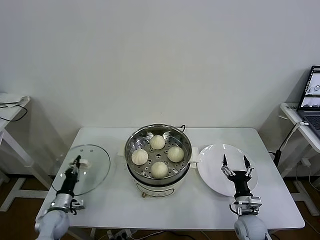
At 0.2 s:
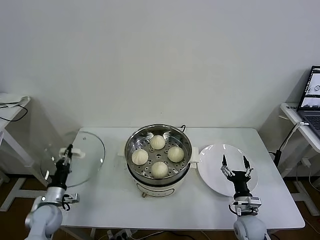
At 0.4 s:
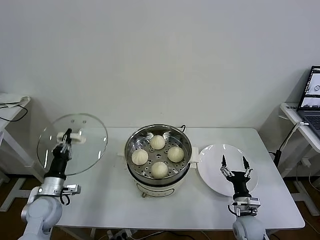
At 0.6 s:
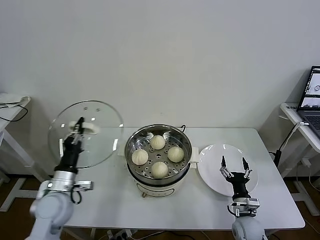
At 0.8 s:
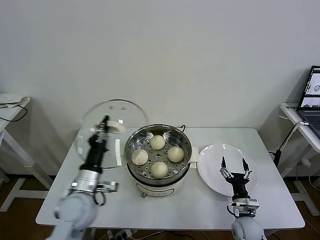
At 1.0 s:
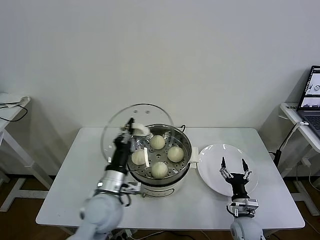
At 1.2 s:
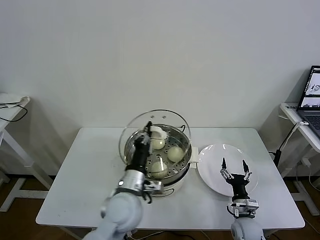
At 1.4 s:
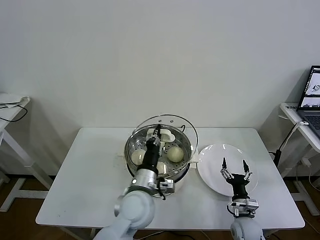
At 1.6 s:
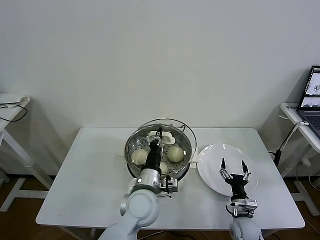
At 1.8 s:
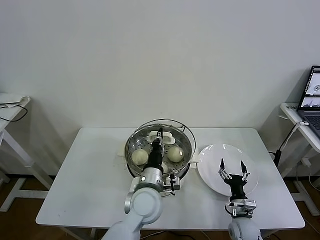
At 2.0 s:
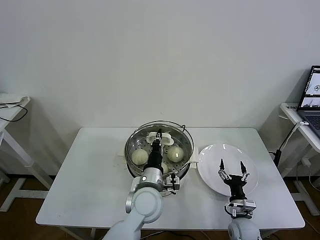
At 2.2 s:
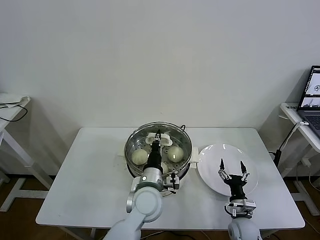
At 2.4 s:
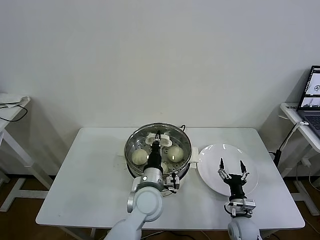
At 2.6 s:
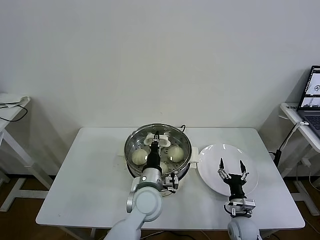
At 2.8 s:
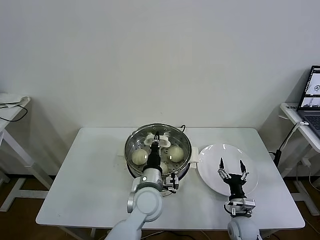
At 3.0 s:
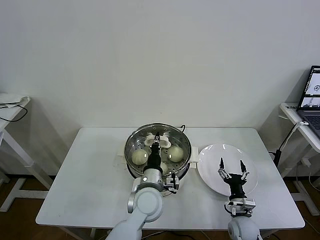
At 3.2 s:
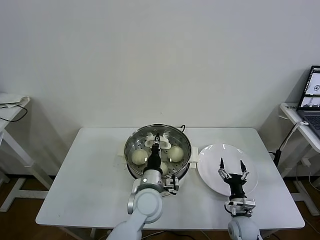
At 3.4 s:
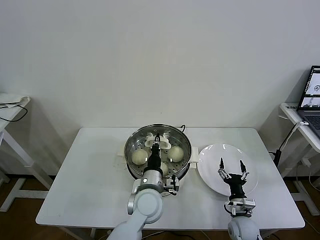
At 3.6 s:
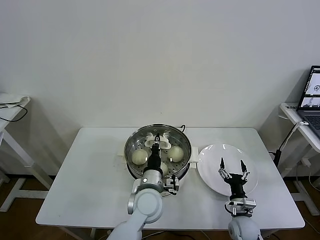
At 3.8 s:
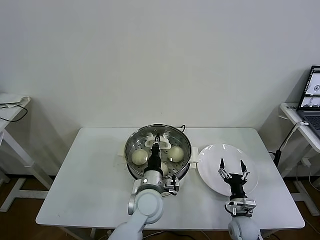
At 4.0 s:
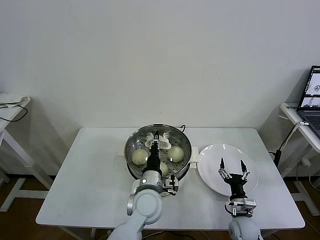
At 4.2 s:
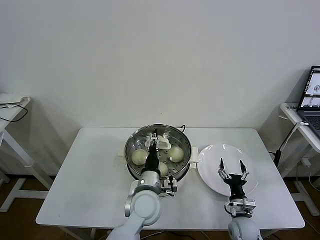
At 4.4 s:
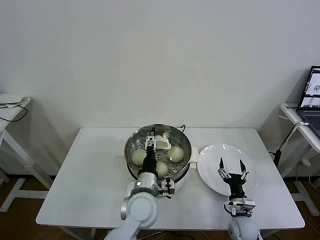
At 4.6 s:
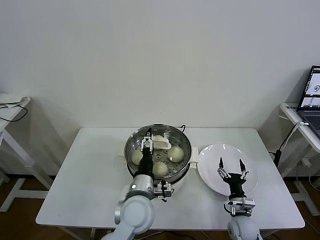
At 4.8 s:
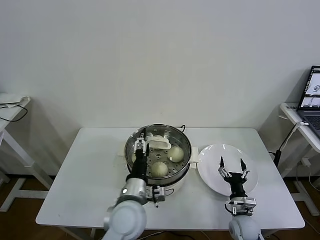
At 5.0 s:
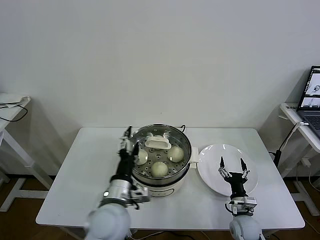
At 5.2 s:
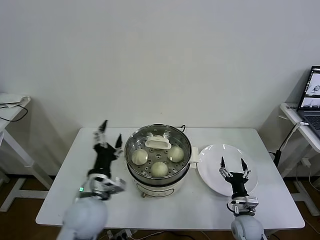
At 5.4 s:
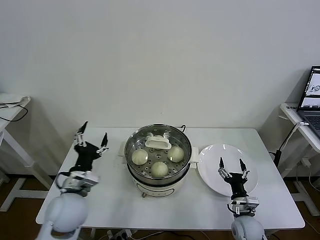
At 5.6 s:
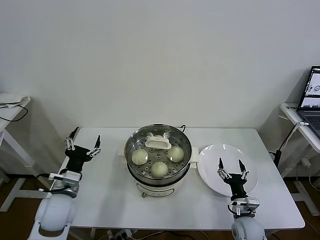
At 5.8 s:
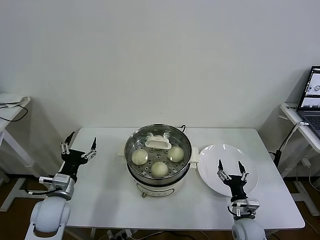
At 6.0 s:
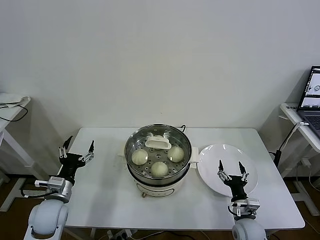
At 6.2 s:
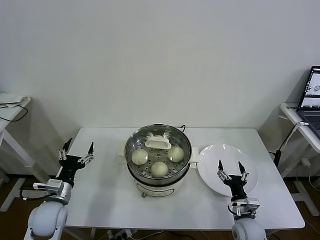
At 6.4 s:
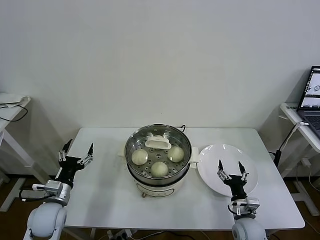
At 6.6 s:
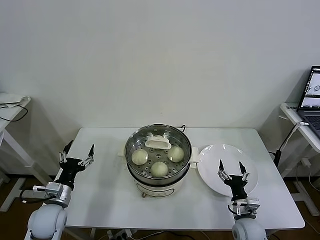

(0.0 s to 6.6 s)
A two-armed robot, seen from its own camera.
Task of the whole recording: take steamed baozi put them in steamer then cover it.
Step, 0.0 s - 4.6 s: Place the pot lid on the steamer with left gripper.
0.0 s - 1.6 s: The left gripper shifts some 40 cm to the right and upward.
1.6 s - 3.2 s: The grippers make only small movements.
3.2 s - 5.0 s: The left gripper is displaced to the left, backward and upward by about 10 cm, and opens its fingers.
5.0 s - 6.6 s: The left gripper moves to the left, approximately 25 cm.
